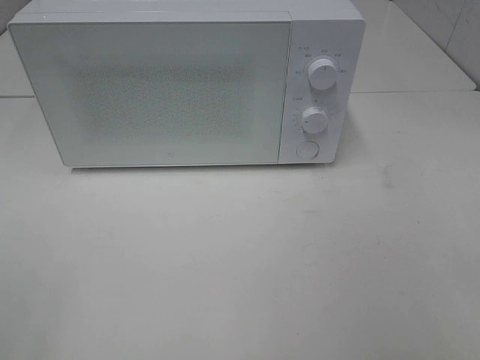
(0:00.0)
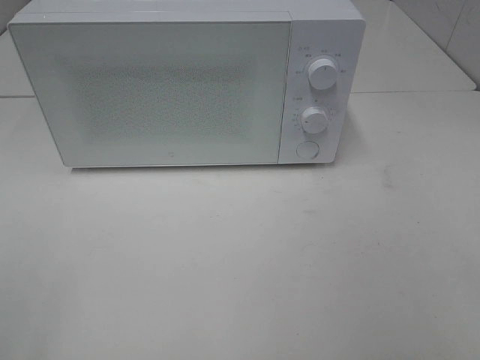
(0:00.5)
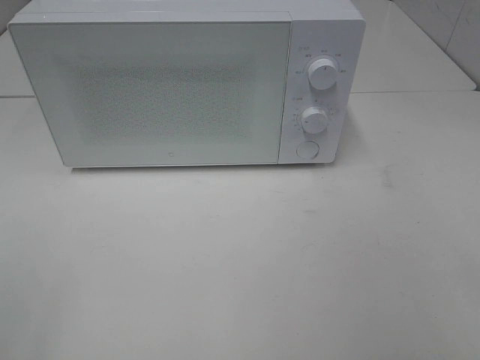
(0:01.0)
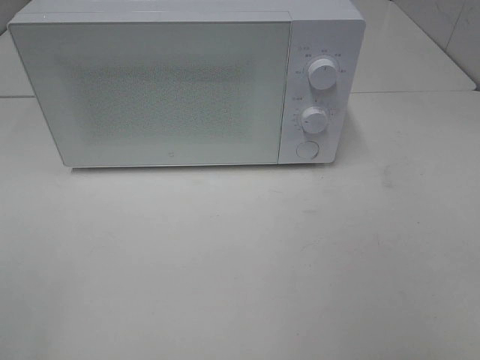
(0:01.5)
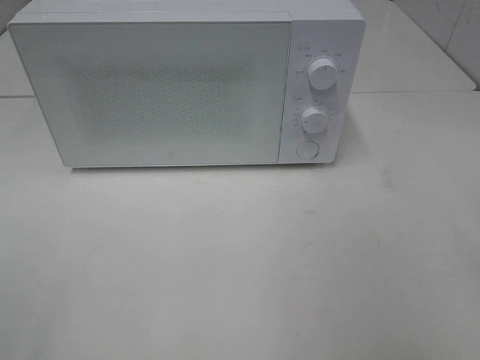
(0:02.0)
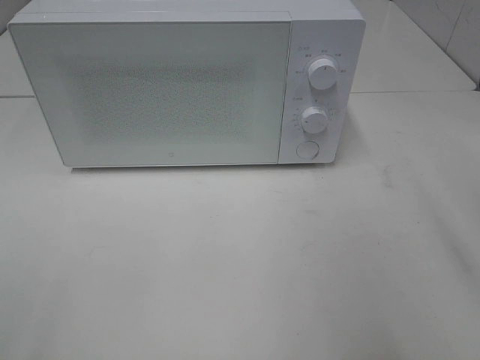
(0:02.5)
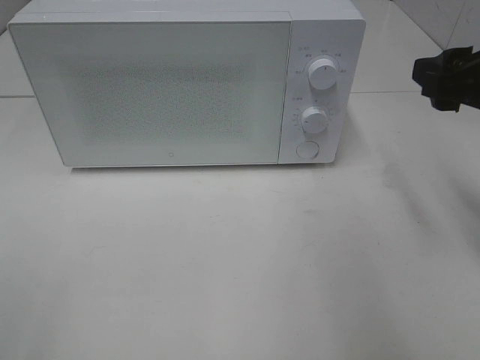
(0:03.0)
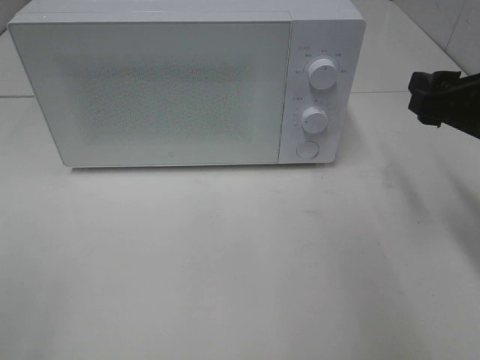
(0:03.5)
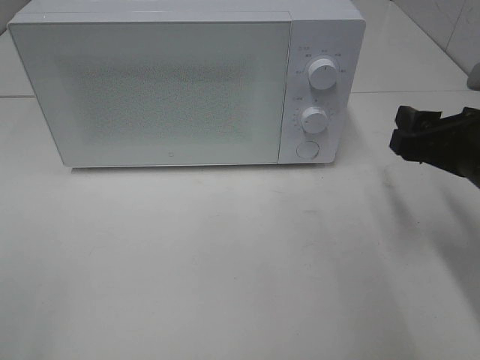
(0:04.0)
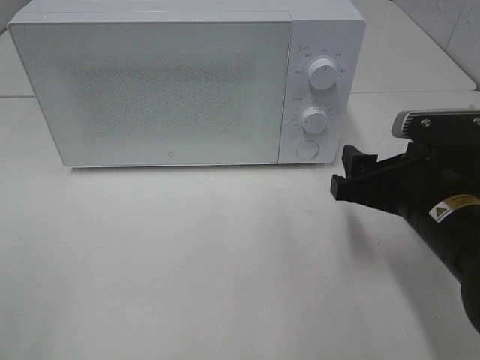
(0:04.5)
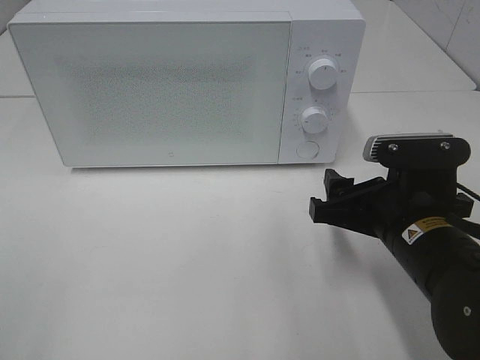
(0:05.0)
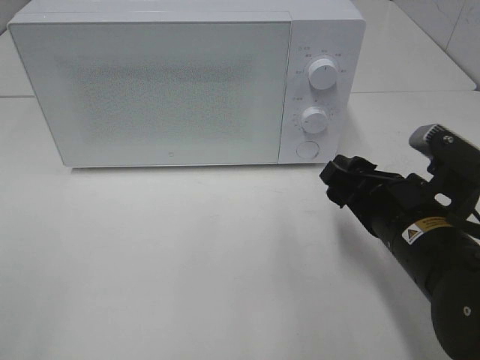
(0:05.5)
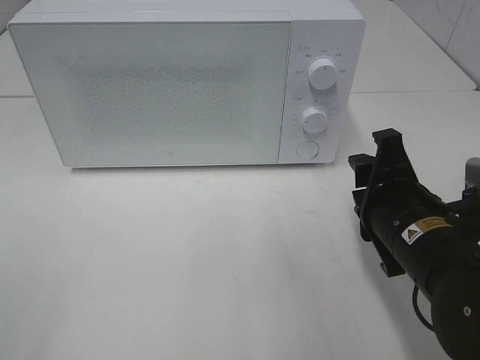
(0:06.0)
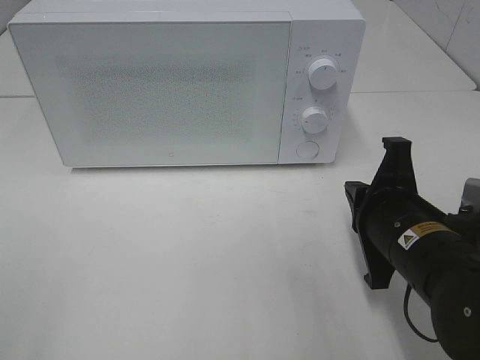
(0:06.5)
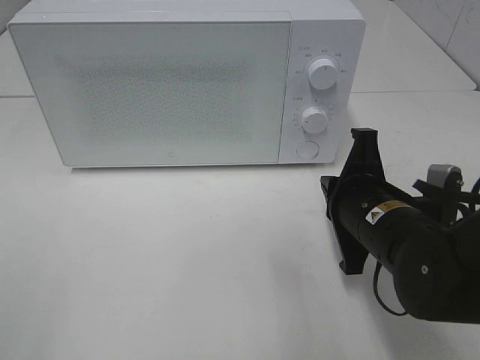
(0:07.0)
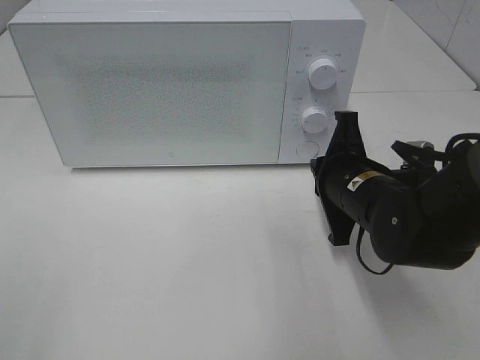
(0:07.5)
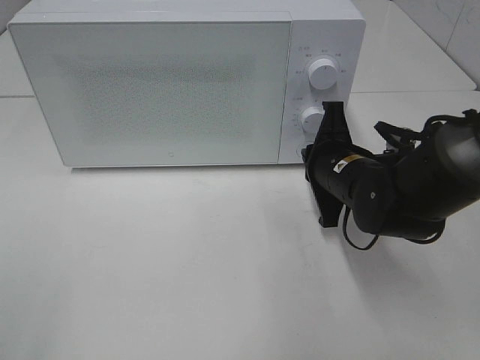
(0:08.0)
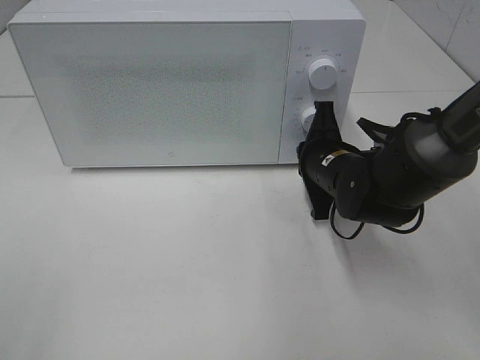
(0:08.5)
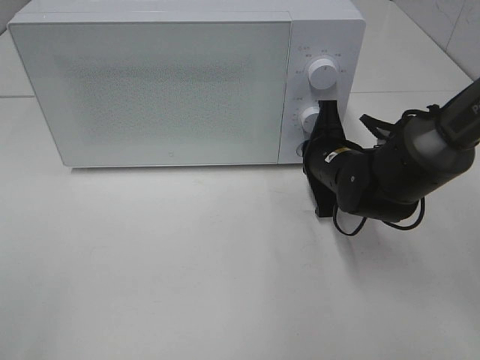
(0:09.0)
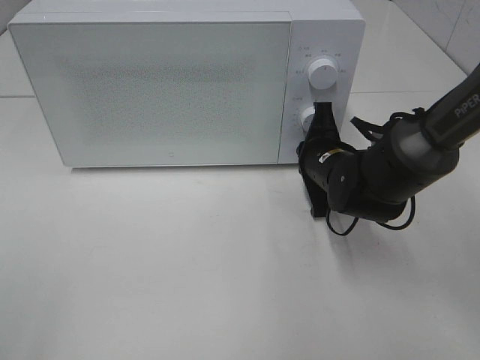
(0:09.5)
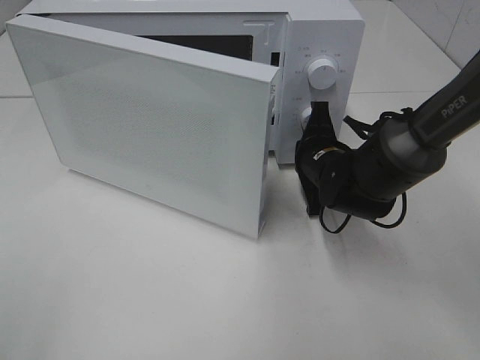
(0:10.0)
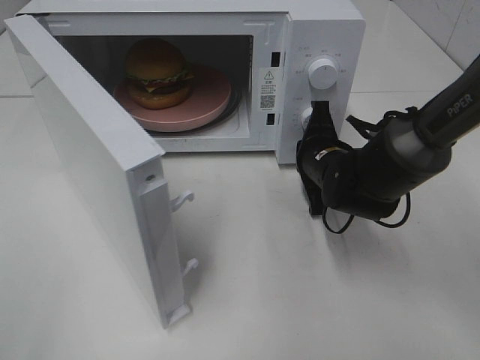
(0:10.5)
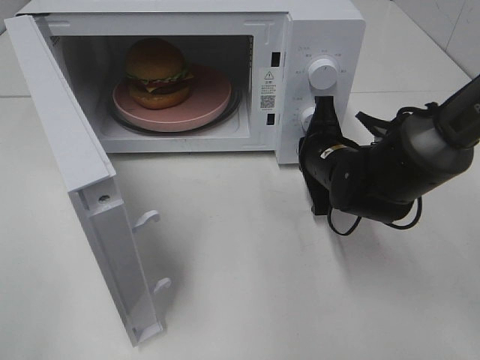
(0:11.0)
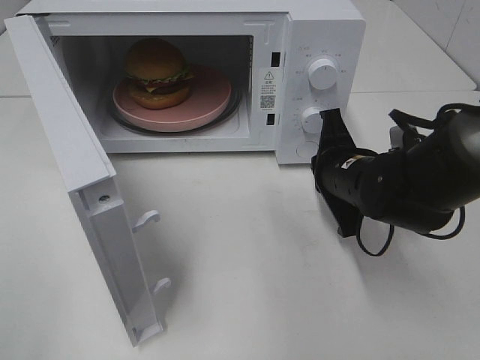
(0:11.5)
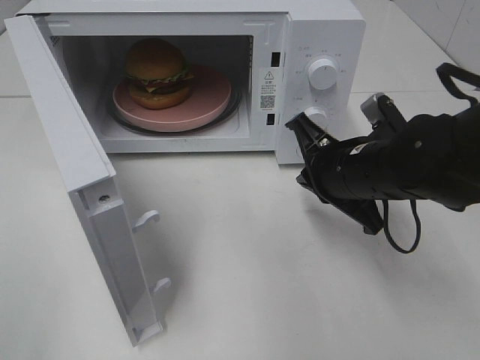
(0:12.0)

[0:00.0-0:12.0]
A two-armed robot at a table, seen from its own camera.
Task of the whole recording: Heat the burger.
Step, 0:00.0 to 0:11.0: Right hand: press the switch.
0:02.0 to 0:04.0: The right gripper heads forward and downward, covering some 20 cm.
0:04.0 to 0:06.0: The right gripper is displaced to the left by some 10 cm.
0:06.0 to 0:08.0: The right gripper shifts approximately 10 cm forward, and closes its fingers.
0:08.0 to 0:10.0: The right gripper shifts by roughly 5 cm.
0:10.0 to 0:12.0: The right gripper heads backward and upward, covering approximately 10 cm.

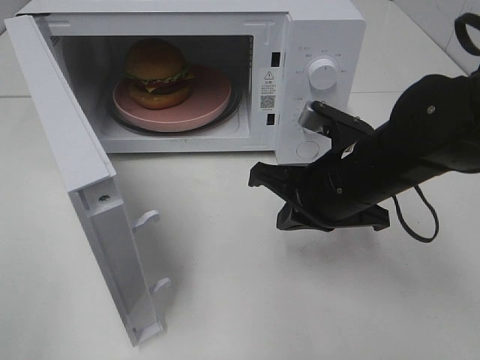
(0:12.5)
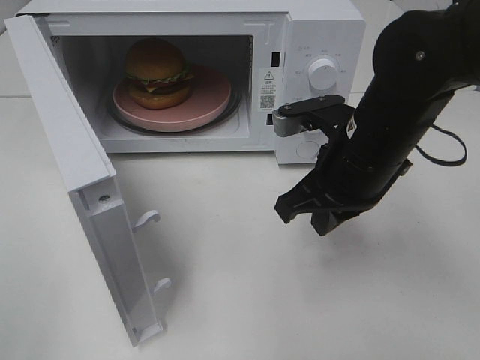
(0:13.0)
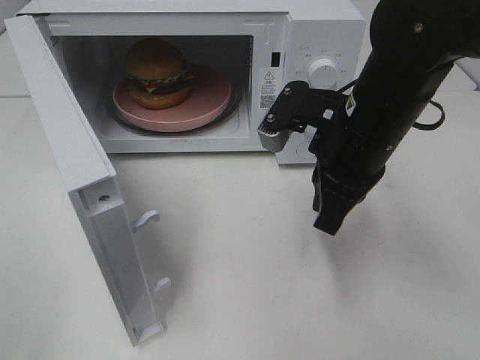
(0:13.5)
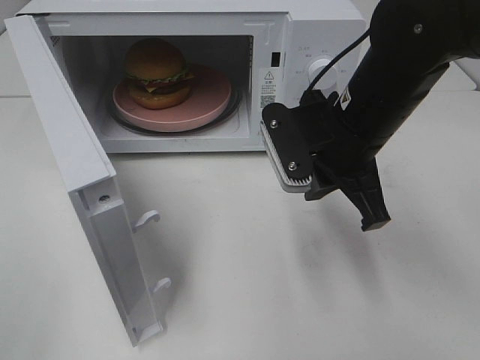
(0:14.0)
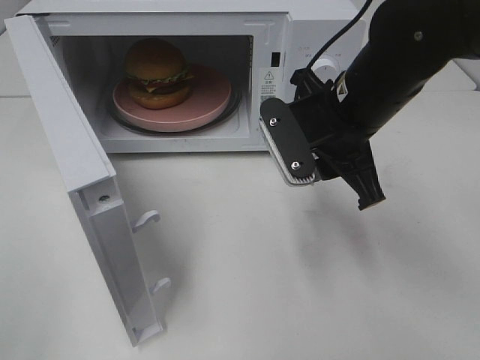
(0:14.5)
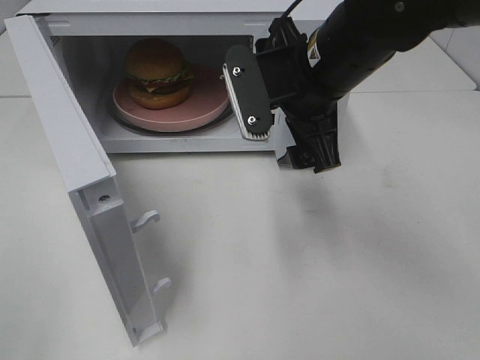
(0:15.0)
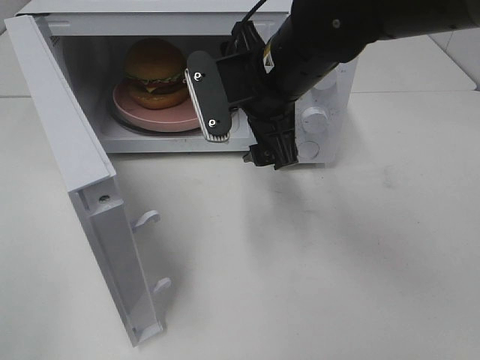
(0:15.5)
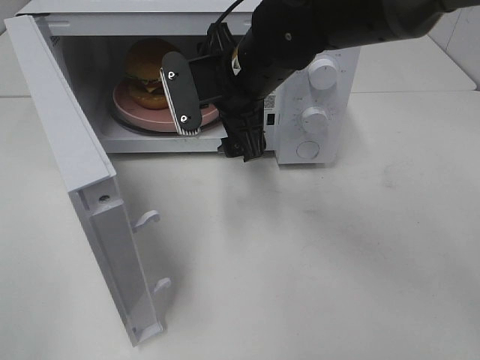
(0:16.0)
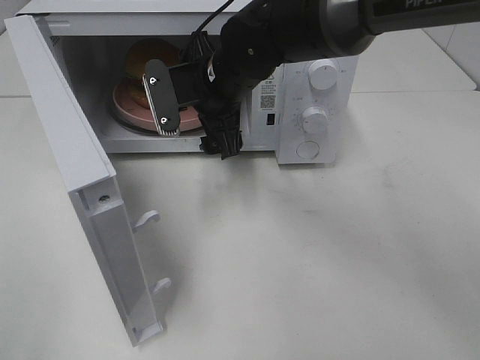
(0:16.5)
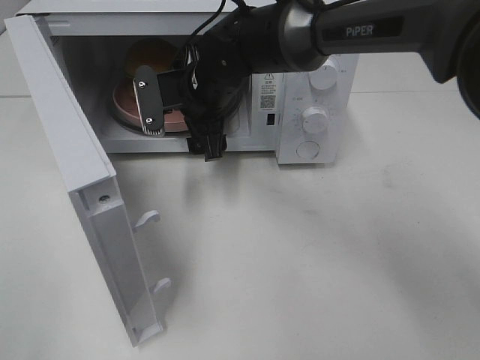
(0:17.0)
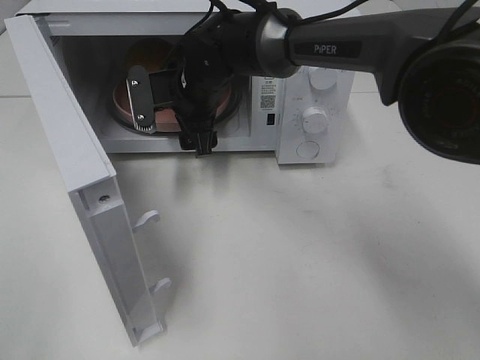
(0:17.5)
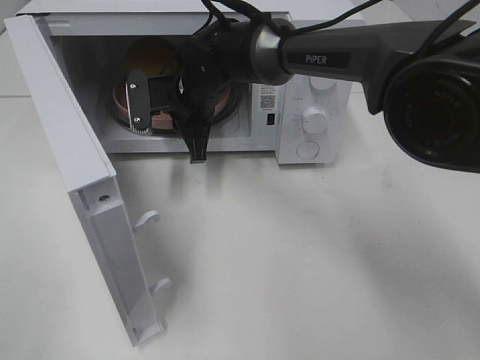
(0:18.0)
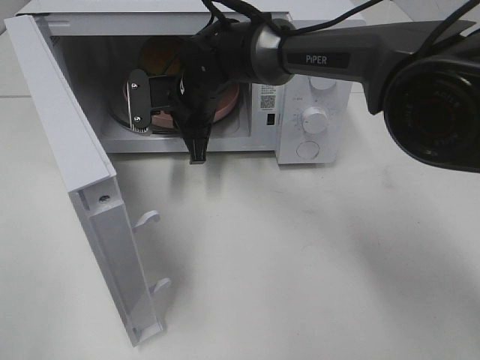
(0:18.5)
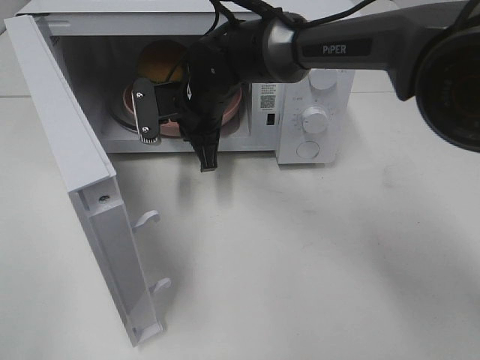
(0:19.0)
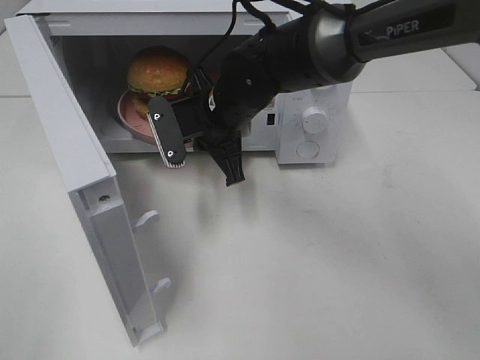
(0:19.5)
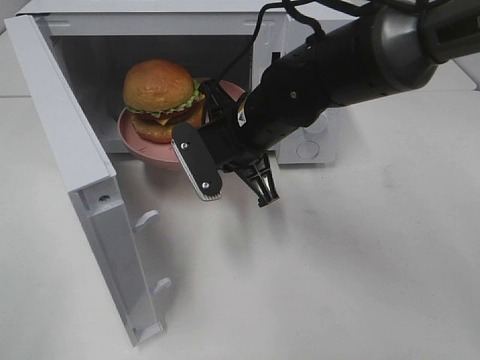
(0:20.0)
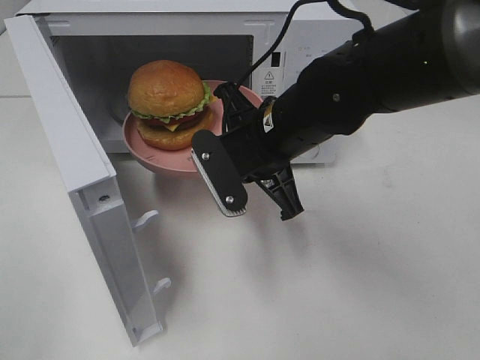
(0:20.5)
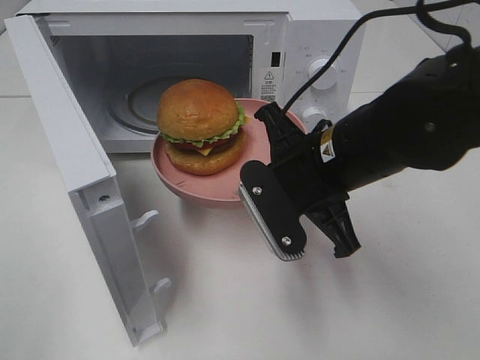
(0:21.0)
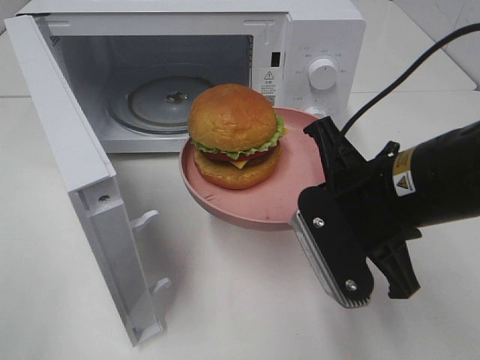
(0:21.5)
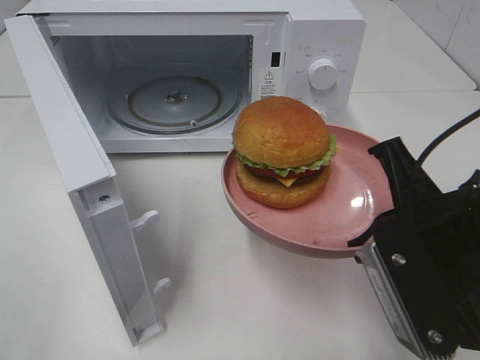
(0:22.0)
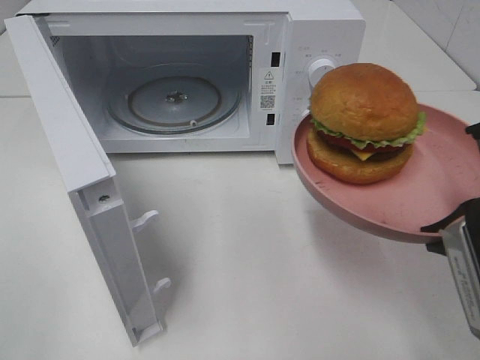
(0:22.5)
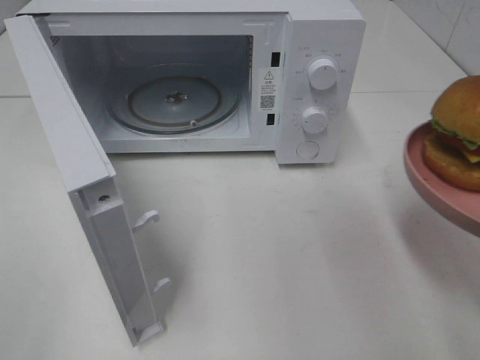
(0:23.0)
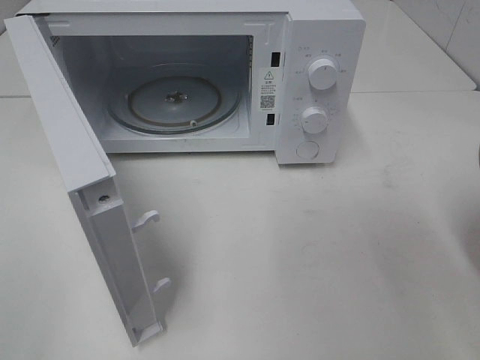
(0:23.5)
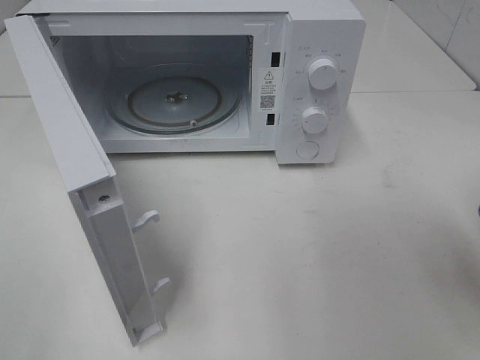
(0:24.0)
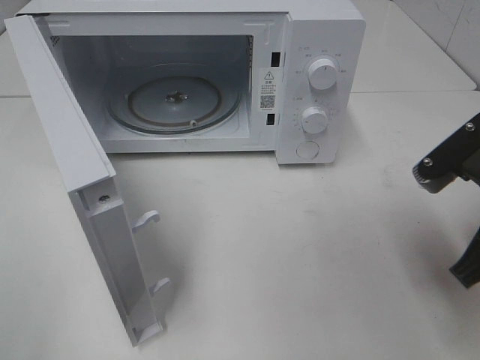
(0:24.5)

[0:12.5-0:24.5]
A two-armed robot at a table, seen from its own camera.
Task of the whole recording: Heat the burger.
Step, 0:12.5 to 0:18.5: Right hand: grab the plate with the hamburger.
0:12.5 to 0:14.5: The right gripper is displaced upward by some 5 cm, and opens its fingers.
0:14.5 to 0:16.5: The right gripper moves to the left and forward, approximately 15 cm, and opens up.
0:16.5 to 0:18.5: The right gripper shifts by approximately 10 cm, and closes.
0:18.5 to 0:20.5: The right gripper heads backward and to the right, covering some 15 cm.
0:20.5 to 0:22.5: The right gripper shifts some 25 cm backward and to the right.
0:22.5 to 0:24.5: The right gripper heads forward, covering about 5 cm.

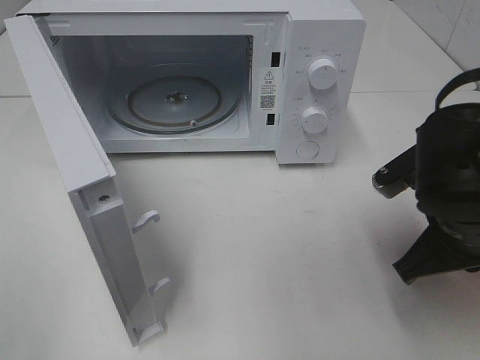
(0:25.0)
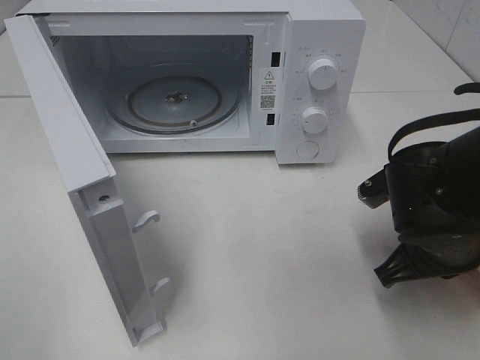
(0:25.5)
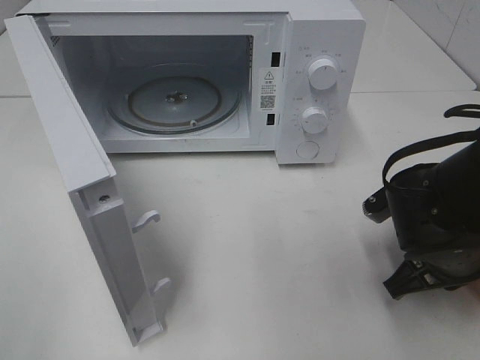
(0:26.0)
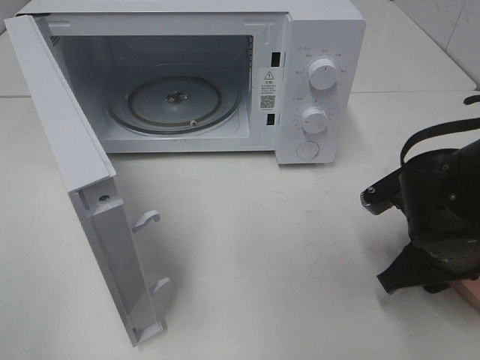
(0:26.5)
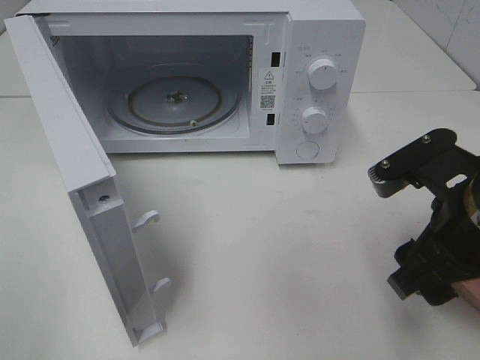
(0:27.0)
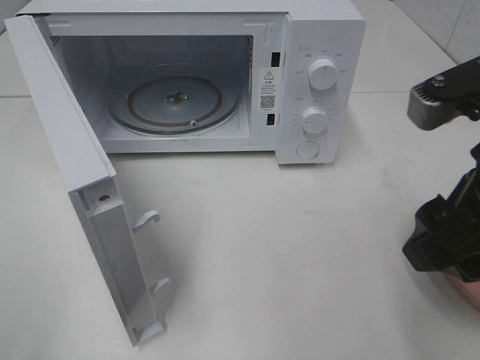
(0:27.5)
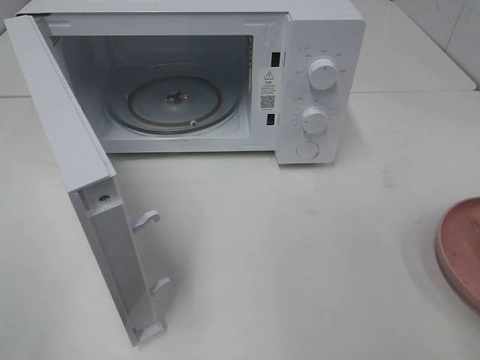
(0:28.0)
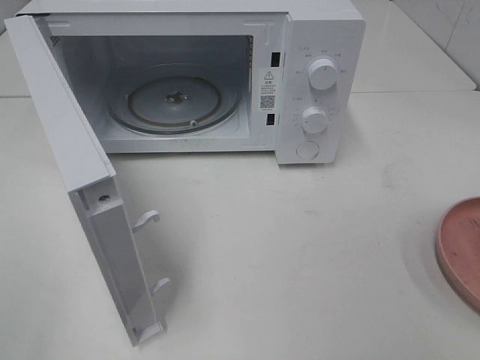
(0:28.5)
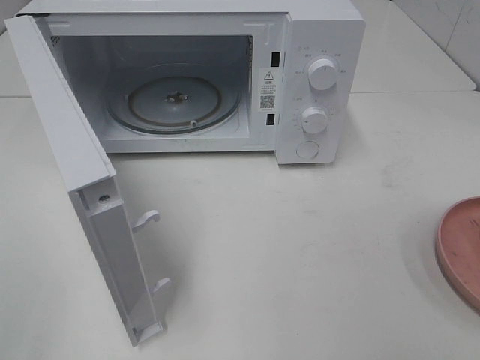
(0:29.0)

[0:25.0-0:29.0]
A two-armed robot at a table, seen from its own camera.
Task of the whole recording: Heat the burger.
0:25.0 to 0:27.0: The right gripper opens its fingers.
0:27.0 to 0:29.0: The right gripper goes roughly 25 cm backward, to the right and upward.
